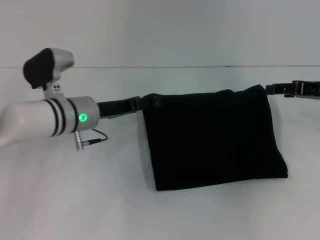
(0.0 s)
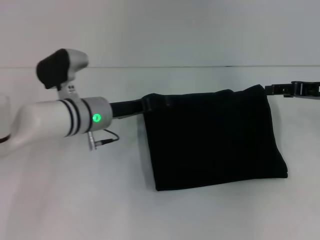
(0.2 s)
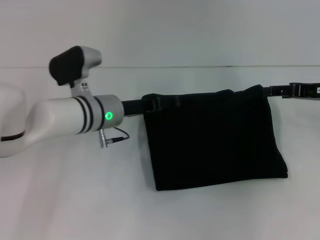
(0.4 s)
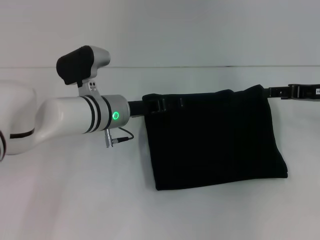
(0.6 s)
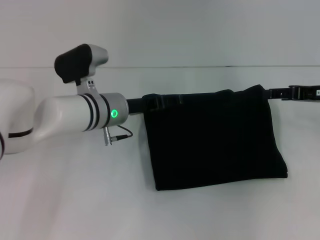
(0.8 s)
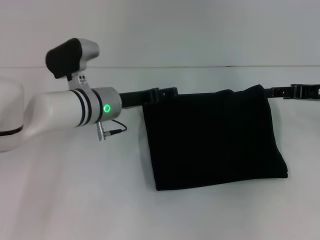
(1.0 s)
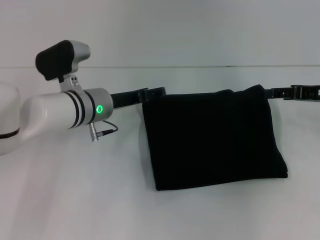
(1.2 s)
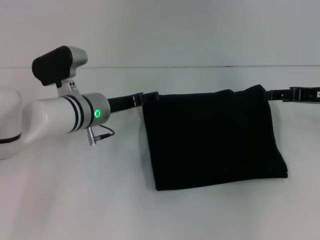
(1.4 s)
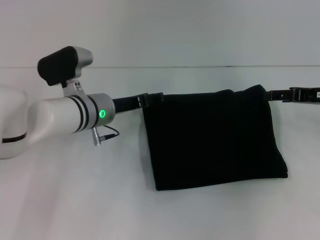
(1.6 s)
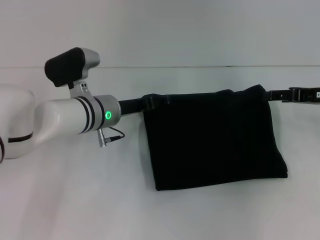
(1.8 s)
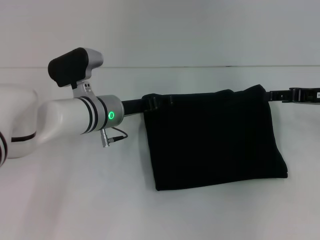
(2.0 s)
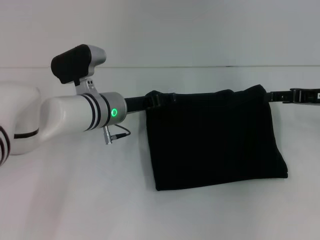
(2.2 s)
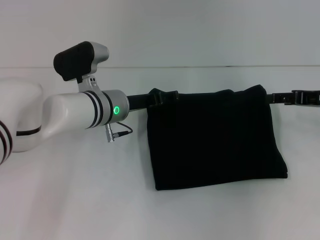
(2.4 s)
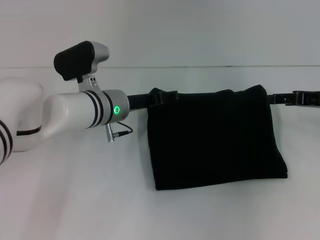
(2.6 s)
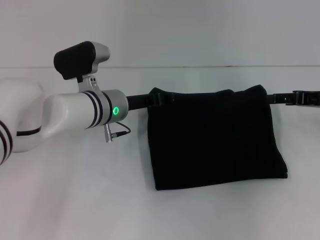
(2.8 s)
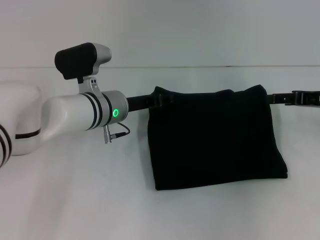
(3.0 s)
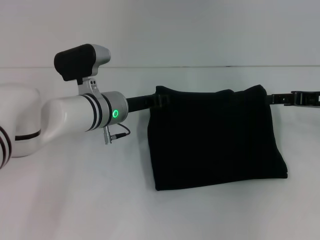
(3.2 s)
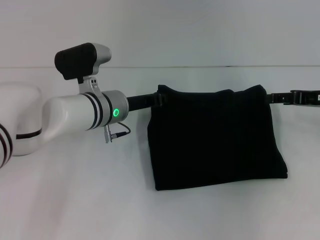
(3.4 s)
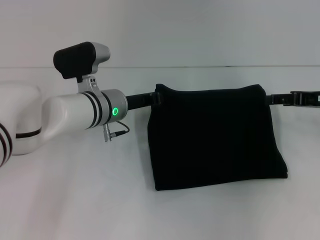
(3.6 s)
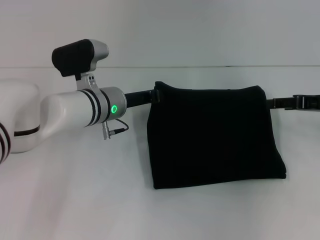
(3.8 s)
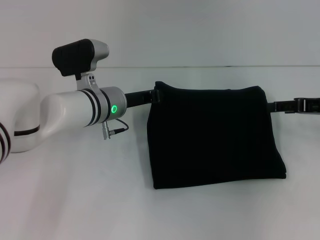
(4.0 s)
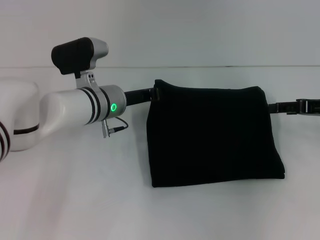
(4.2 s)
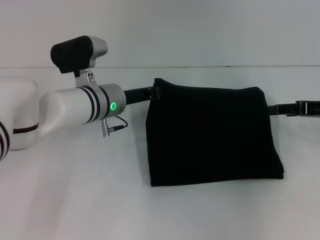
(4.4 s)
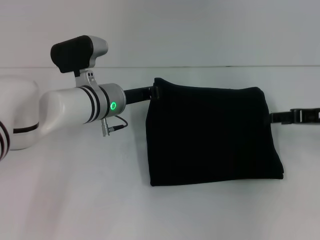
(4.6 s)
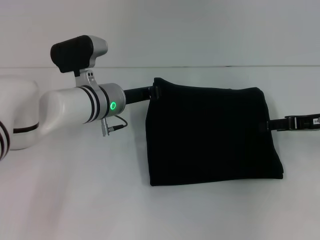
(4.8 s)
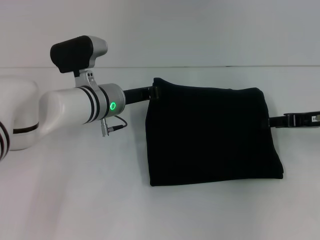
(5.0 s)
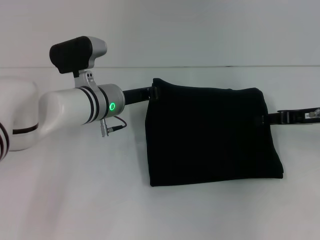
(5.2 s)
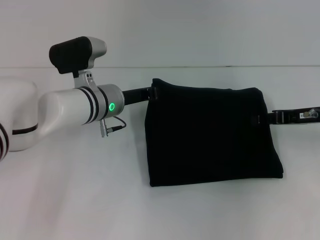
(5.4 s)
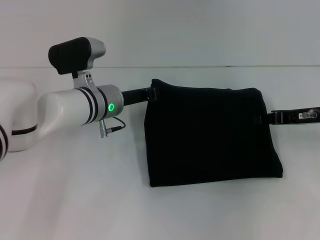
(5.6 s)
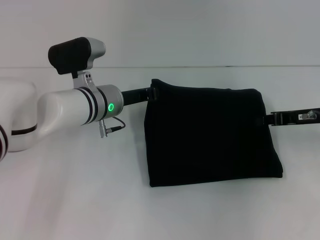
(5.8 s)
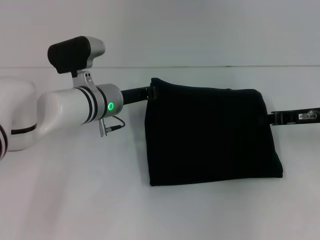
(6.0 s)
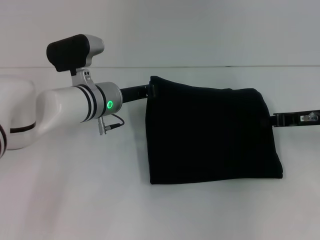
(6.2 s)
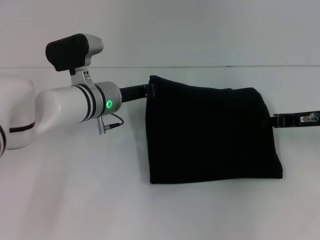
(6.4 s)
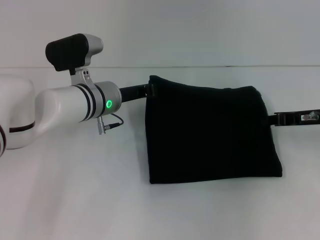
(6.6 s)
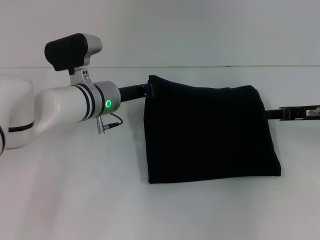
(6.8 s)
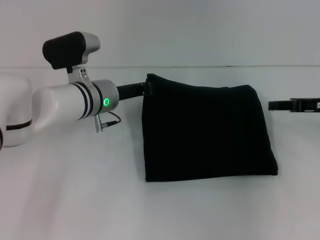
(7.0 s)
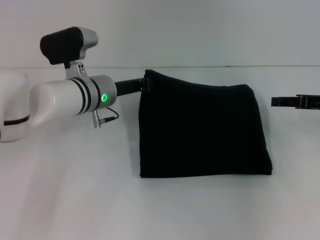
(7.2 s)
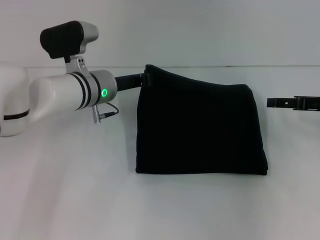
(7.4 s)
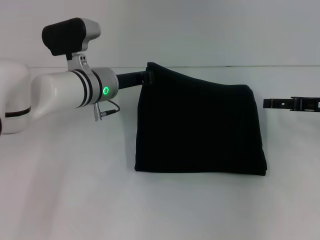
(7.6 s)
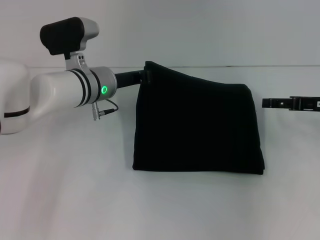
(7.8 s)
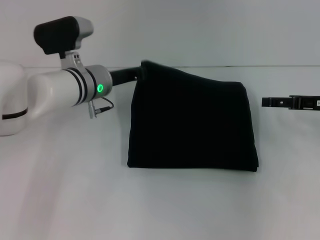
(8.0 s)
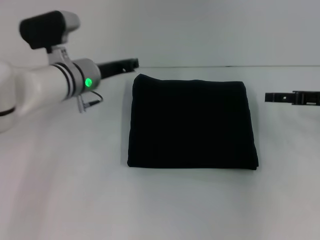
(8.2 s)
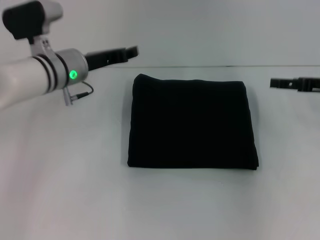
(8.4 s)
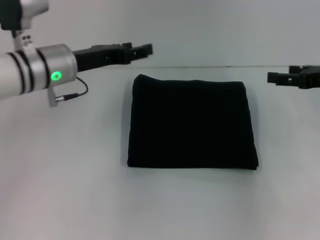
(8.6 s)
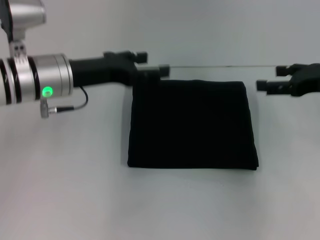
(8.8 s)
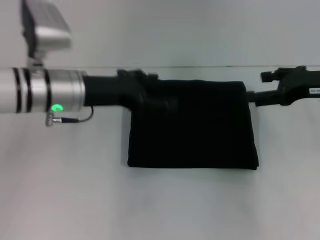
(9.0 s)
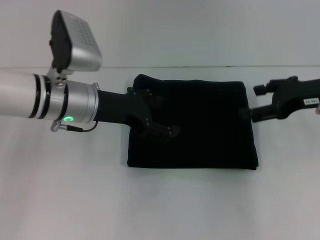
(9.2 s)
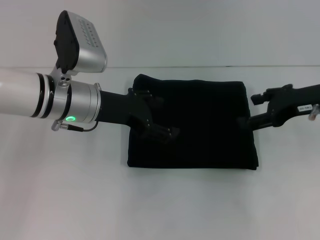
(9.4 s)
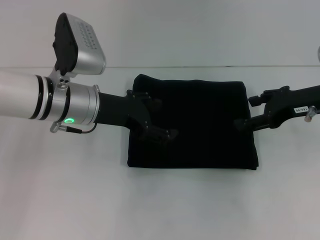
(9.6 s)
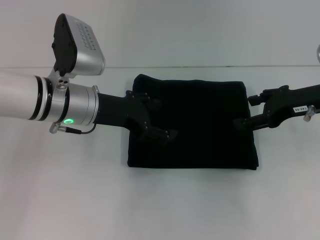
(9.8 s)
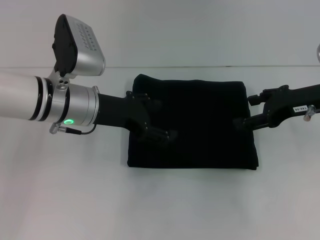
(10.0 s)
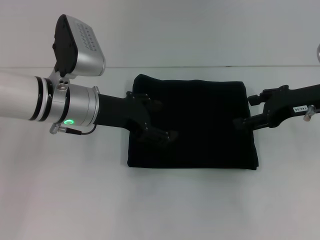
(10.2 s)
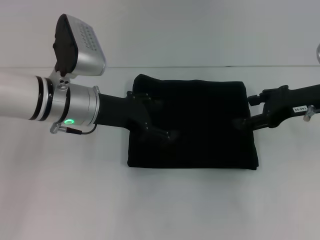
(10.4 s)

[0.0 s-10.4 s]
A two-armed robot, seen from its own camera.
0.0 to 3.0 s: The grippers move only a little.
3.0 to 4.4 s: The left gripper closes up.
4.4 to 6.0 s: The right gripper closes.
6.0 to 7.4 s: The right gripper opens its fingers.
7.4 to 9.0 s: The left gripper shifts roughly 10 cm backward and upward, and opens; the right gripper shifts about 5 cm upward.
9.0 to 10.4 s: The grippers move only a little.

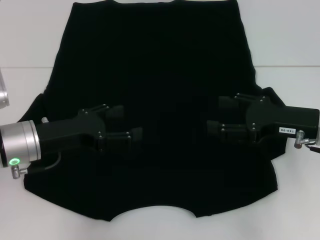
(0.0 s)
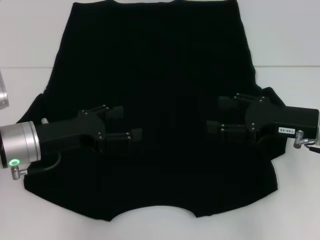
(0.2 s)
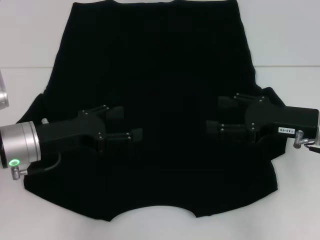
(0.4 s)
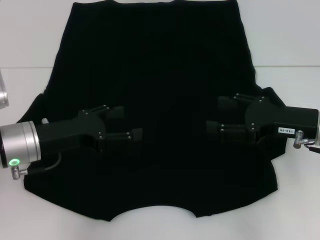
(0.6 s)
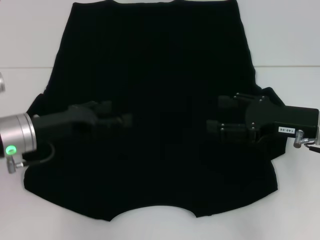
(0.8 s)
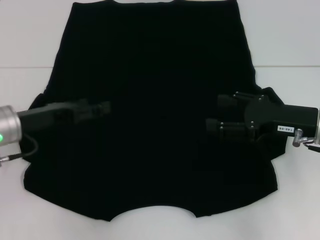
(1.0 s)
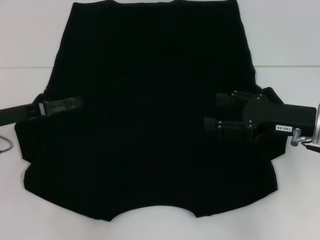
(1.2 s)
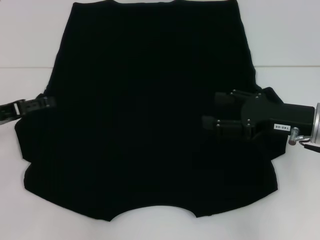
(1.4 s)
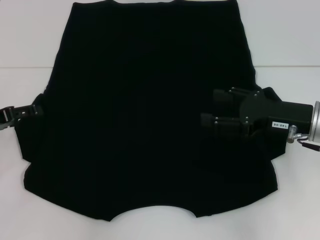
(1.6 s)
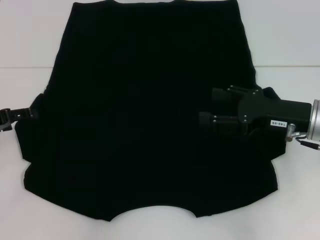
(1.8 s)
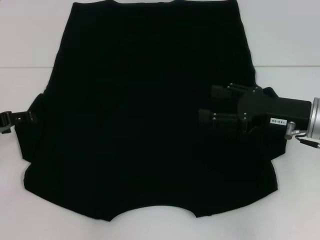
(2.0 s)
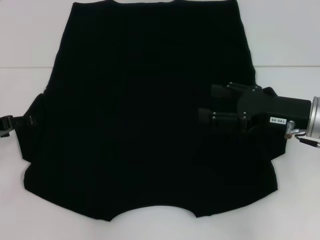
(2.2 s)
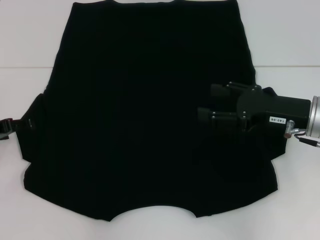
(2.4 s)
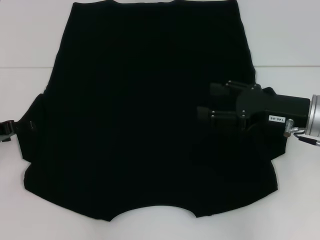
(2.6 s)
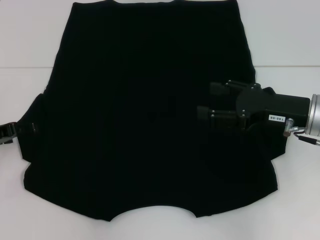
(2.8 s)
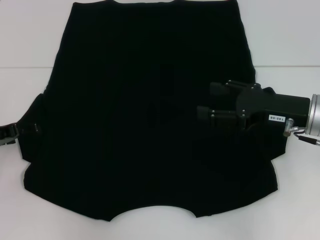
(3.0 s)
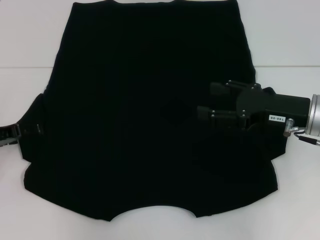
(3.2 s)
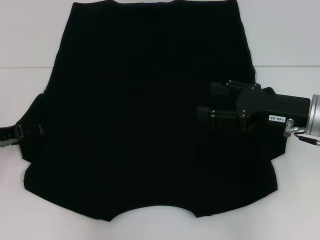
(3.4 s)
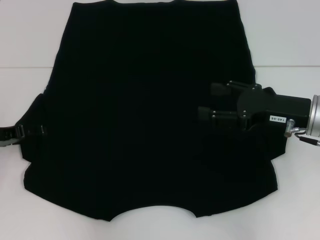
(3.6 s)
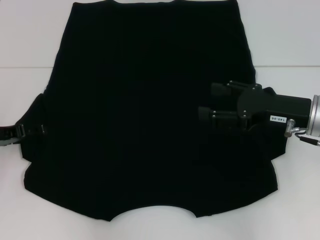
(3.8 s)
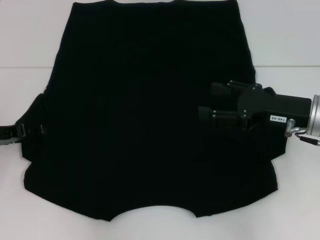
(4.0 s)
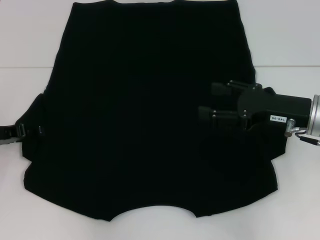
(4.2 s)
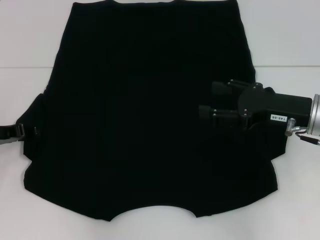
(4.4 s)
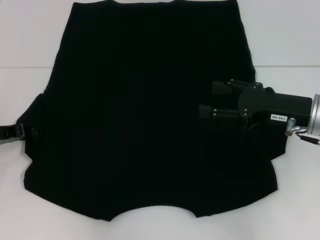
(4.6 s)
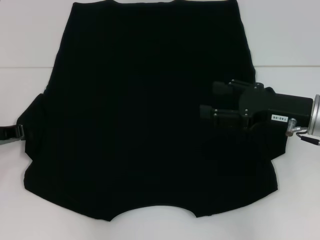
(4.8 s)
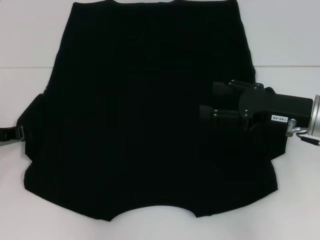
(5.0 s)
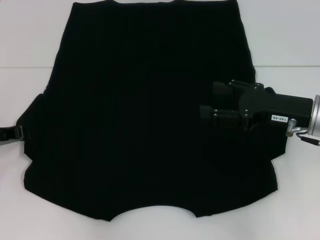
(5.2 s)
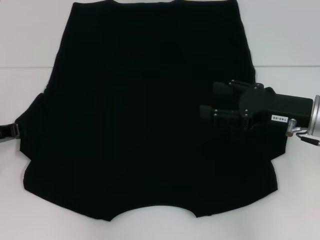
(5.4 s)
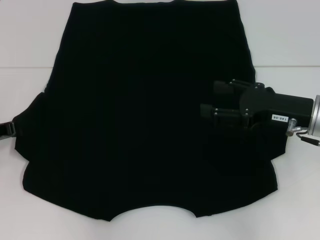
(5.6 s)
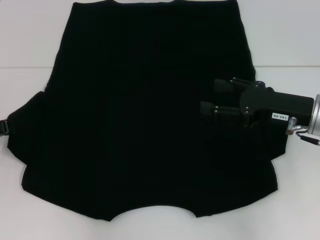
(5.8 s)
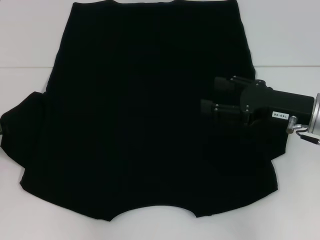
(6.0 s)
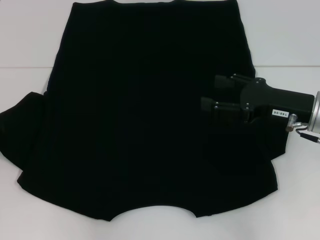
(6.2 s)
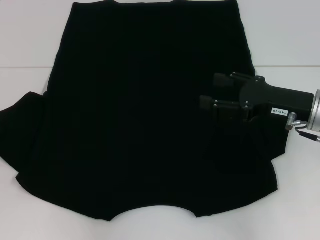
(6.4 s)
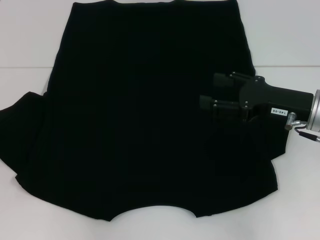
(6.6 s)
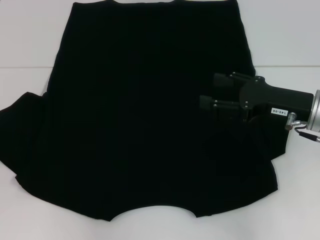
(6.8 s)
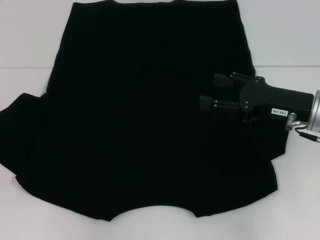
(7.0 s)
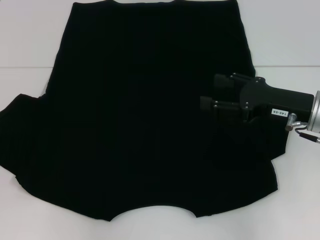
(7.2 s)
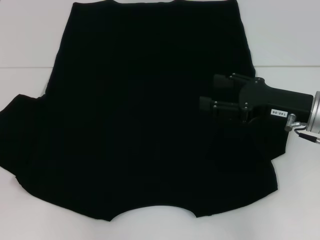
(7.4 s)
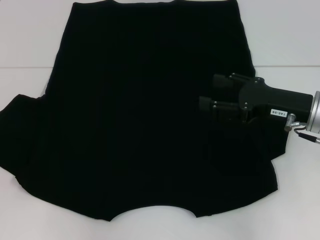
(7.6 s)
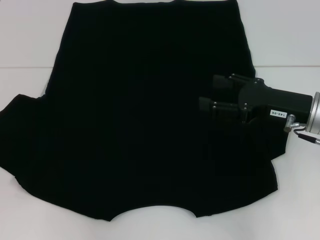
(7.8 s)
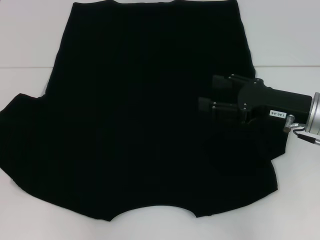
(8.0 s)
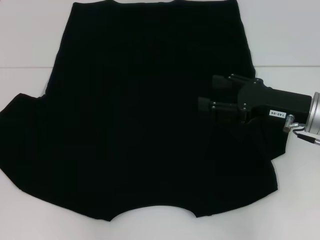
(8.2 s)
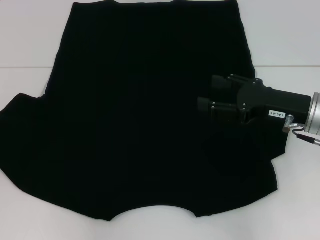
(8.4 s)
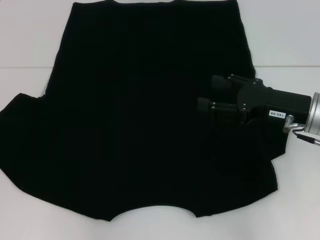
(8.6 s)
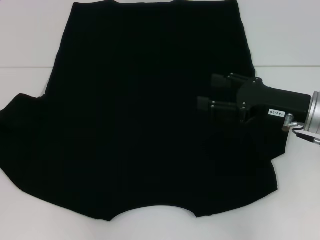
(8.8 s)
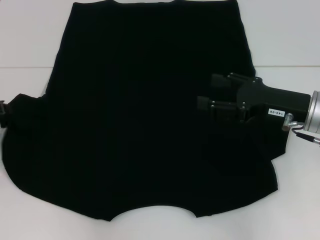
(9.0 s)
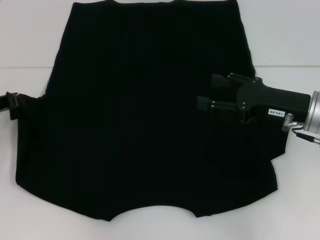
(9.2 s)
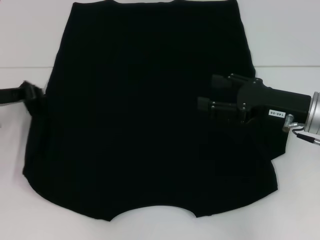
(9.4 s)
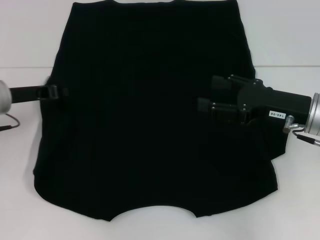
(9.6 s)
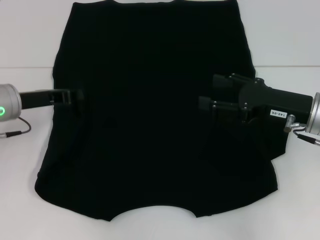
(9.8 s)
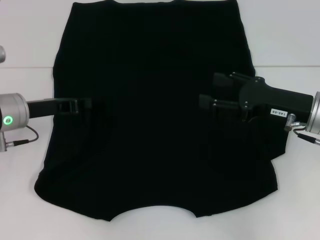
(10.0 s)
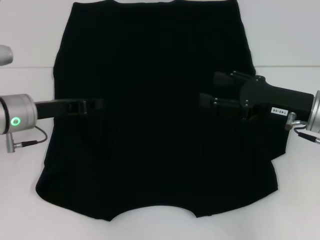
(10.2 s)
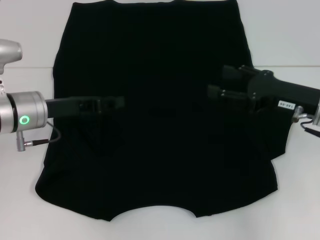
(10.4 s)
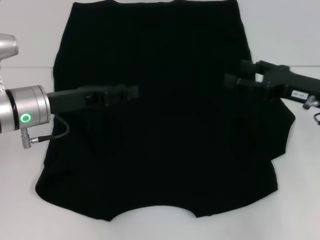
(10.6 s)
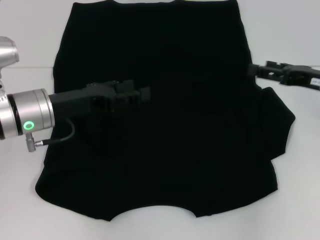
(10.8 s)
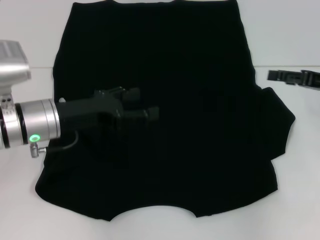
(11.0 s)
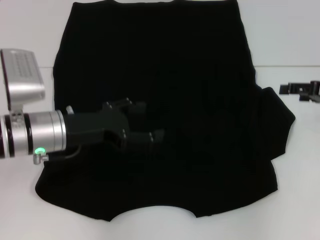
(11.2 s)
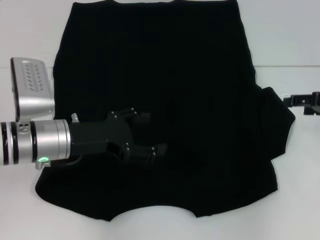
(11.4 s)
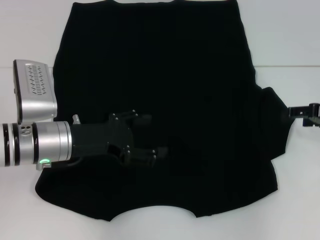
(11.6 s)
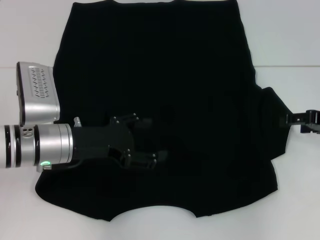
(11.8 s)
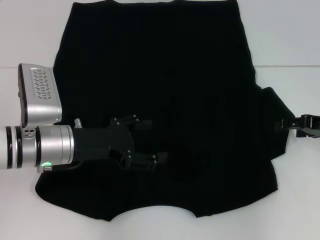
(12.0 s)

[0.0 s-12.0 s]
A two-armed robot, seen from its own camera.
Step, 0.0 to 10.8 s: Fold the bottom left sleeve with your left hand.
0.0 to 1.6 s: The left gripper is displaced to the left by about 10 cm.
1.6 to 3.0 s: There are only small adjustments of the grippers.
3.0 to 4.4 s: Neither gripper changes place.
4.4 to 6.0 s: The left gripper closes up.
6.0 to 9.0 s: The grippers make only small movements.
9.0 to 10.4 s: The left gripper travels to the right by about 10 cm.
10.4 to 12.0 s: The right gripper is displaced to the right by approximately 10 cm. Meanwhile the left gripper moves about 5 cm, and opens.
